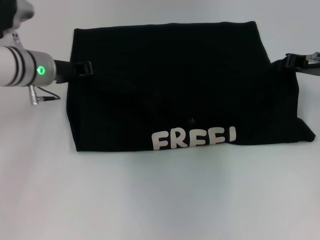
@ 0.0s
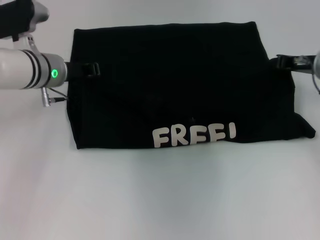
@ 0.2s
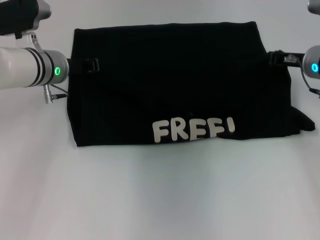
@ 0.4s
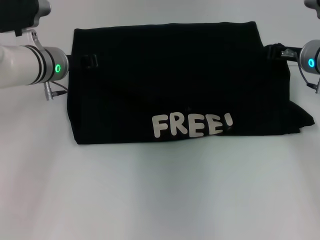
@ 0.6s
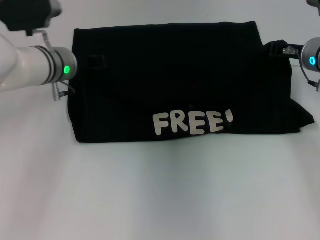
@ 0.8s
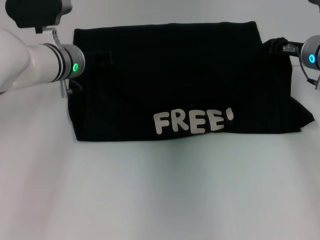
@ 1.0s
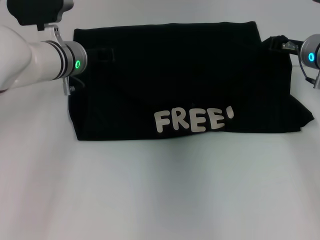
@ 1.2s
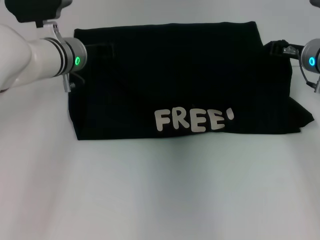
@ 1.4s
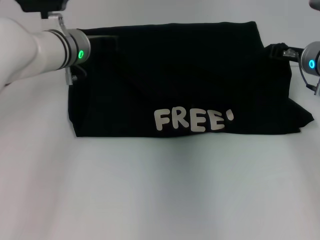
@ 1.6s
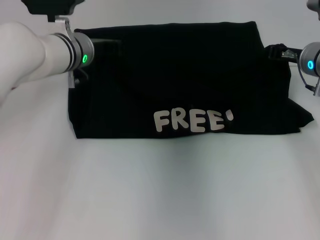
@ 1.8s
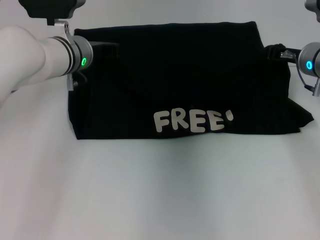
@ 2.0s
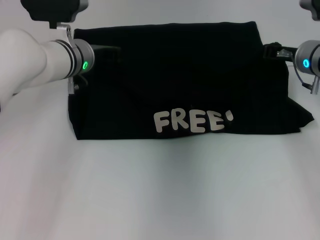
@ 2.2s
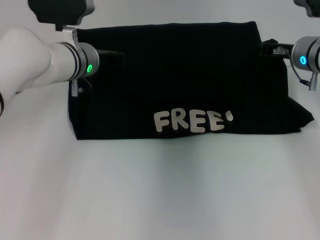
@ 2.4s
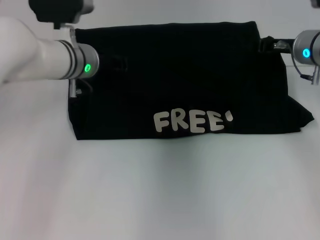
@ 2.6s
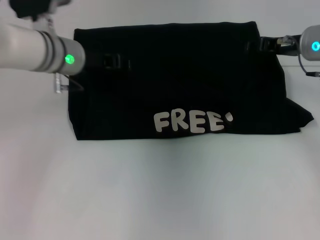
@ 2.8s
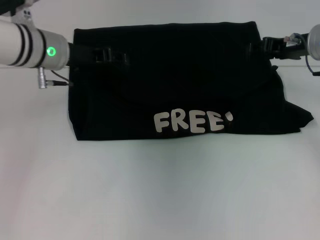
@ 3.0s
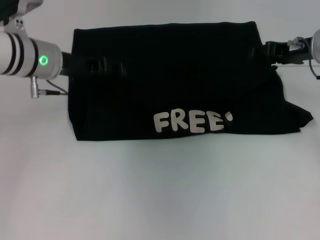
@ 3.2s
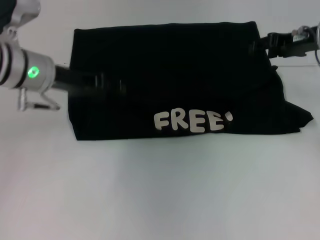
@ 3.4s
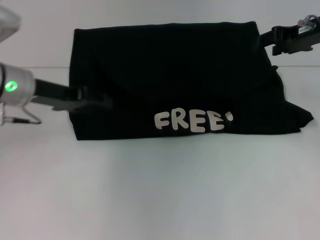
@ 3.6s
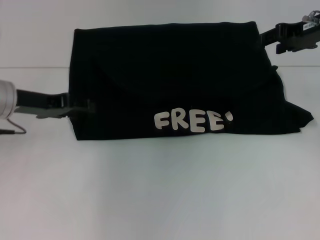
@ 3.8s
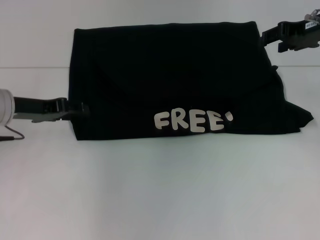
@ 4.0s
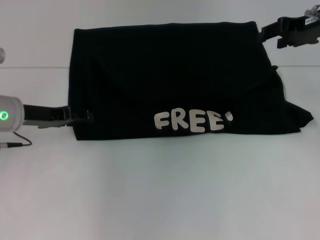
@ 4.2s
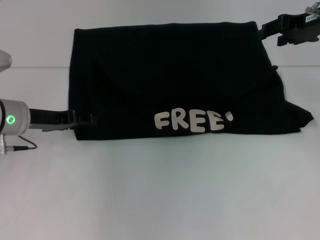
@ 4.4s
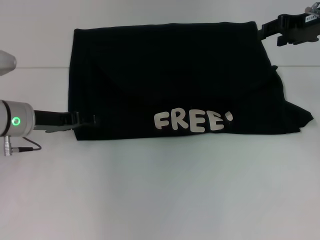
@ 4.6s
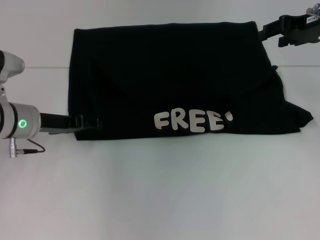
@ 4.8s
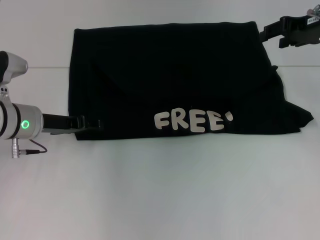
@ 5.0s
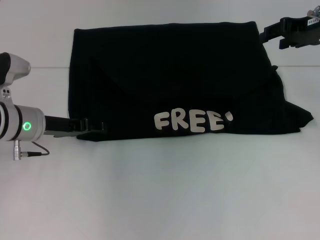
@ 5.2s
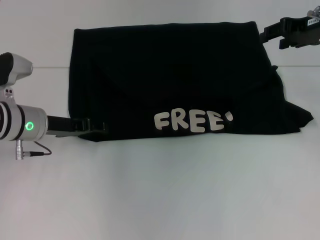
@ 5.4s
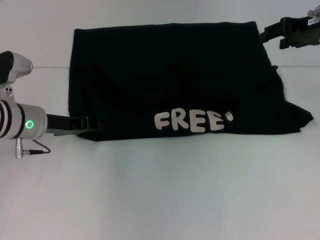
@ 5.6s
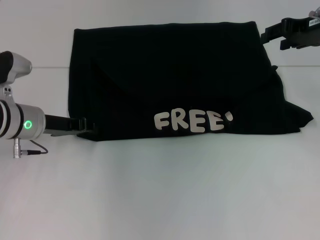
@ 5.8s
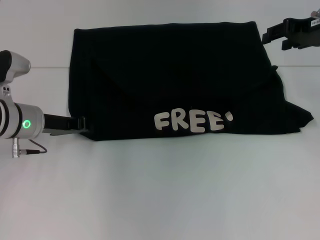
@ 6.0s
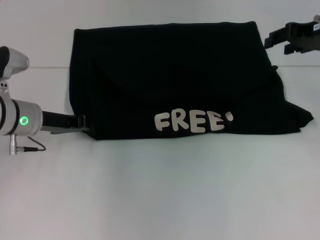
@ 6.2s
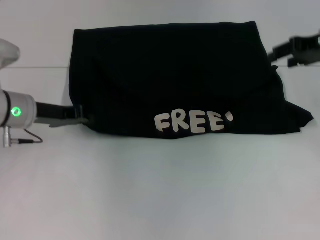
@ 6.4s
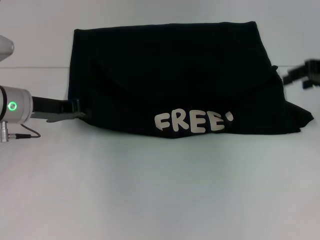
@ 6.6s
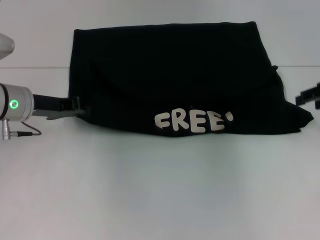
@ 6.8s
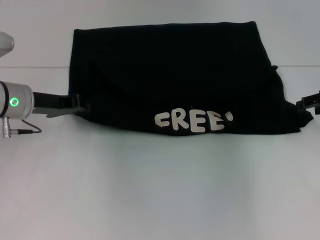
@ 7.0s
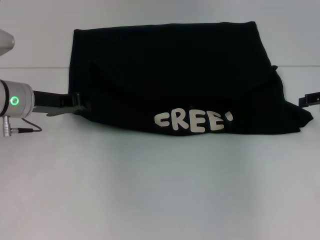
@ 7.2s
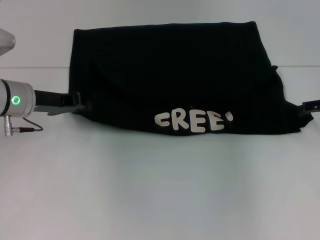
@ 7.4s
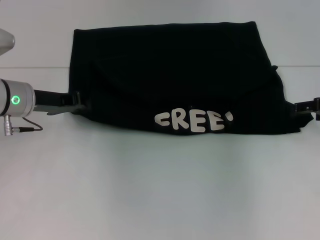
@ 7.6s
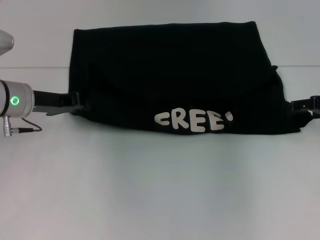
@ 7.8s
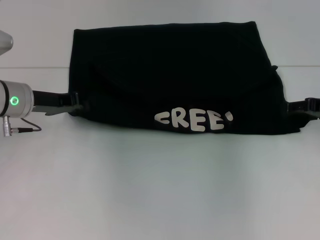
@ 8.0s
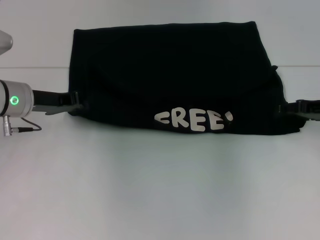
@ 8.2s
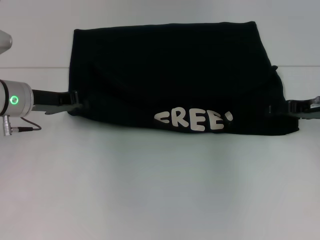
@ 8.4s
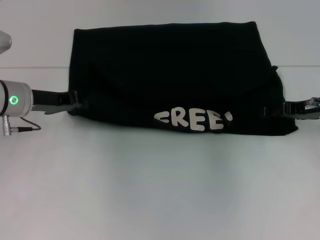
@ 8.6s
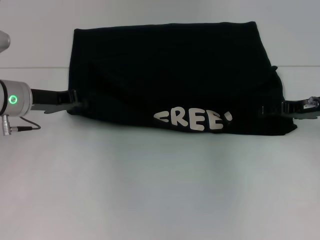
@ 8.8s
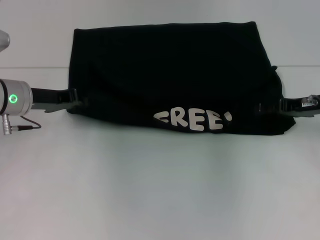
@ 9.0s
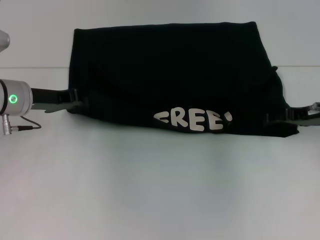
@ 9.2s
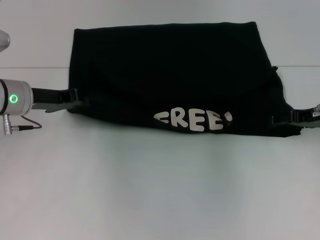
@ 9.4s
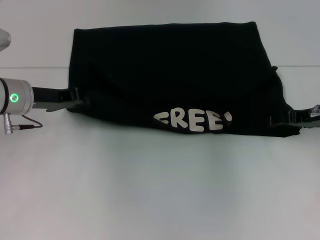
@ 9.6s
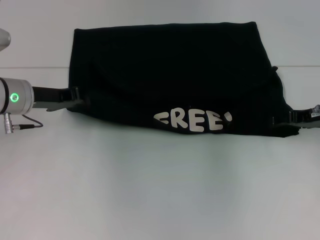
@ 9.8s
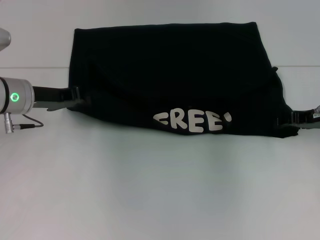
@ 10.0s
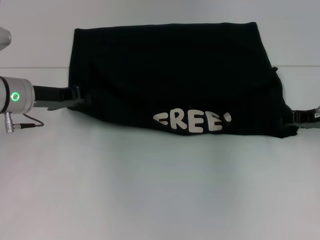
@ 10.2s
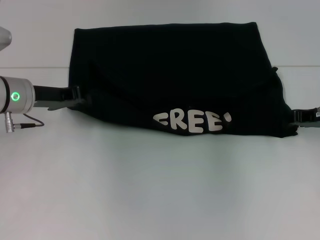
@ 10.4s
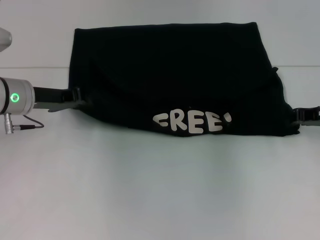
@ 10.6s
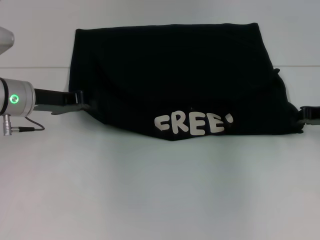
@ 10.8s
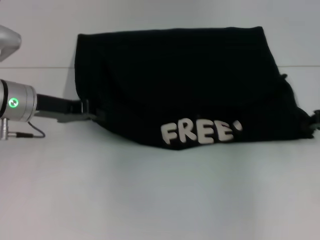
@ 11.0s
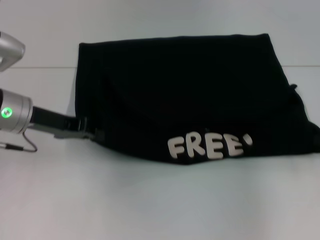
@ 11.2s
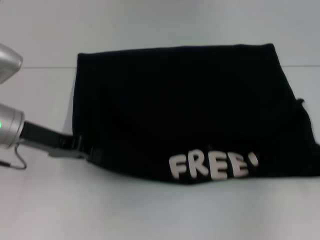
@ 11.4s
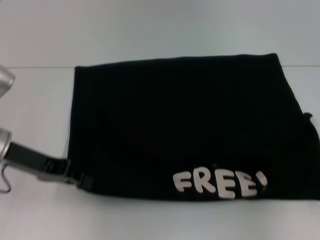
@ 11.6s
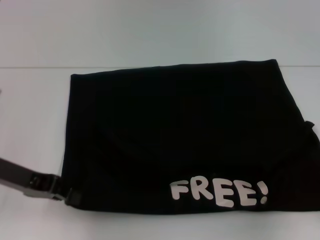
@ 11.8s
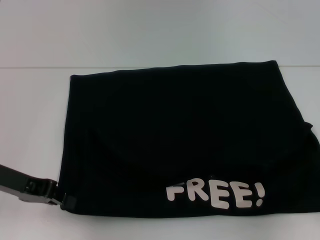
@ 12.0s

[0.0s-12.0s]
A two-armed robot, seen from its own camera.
Step, 0.0s to 4.4s: Fold the clothes with your left hand.
Step, 0.0s to 4.4s: Fold the clothes with your right hand.
0.0s to 1.6s: The left gripper goes about 5 cm to the right.
1.6s to 3.0s: The right gripper opens its fingers, while the left gripper ends up some 5 cm from where it was, and opens its fingers.
3.0s to 4.4s: The left gripper goes about 10 cm downward, to the left and backward. Meanwhile the right gripper travels upward by approximately 5 cm.
4.4s to 6.0s: The left gripper closes.
6.0s to 7.6s: The right gripper shifts about 15 cm downward, to the right and backward.
7.6s to 9.0s: The right gripper goes some 5 cm to the left.
9.0s to 10.4s: The right gripper closes its fingers.
10.4s to 12.0s: The right gripper moves backward and to the right, some 15 cm, and closes. The left gripper goes some 10 cm backward.

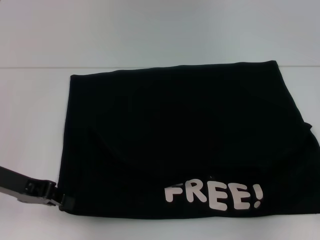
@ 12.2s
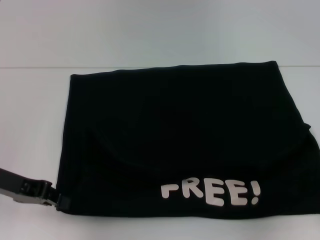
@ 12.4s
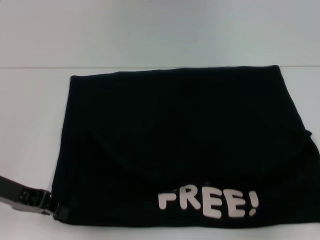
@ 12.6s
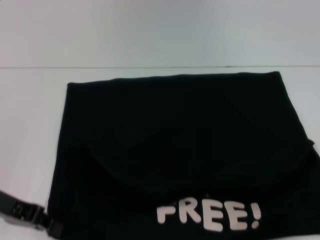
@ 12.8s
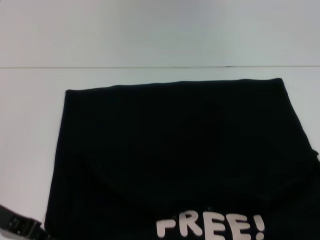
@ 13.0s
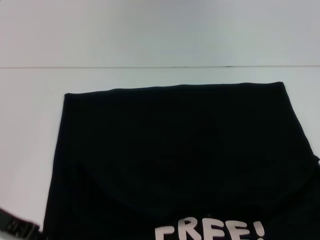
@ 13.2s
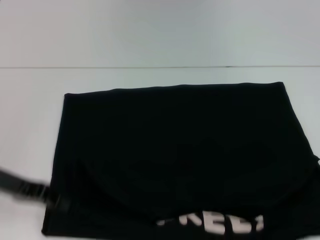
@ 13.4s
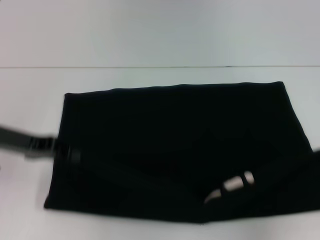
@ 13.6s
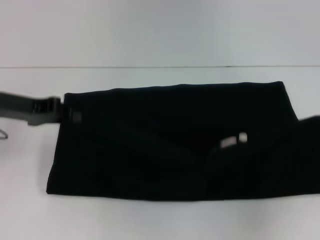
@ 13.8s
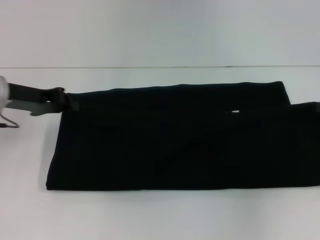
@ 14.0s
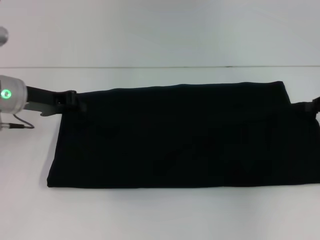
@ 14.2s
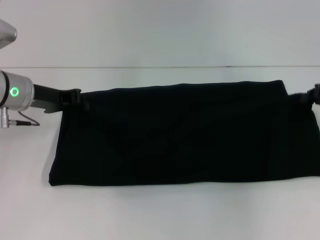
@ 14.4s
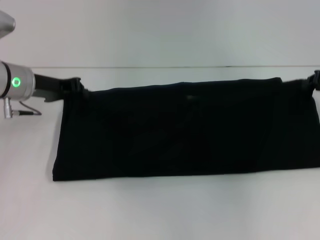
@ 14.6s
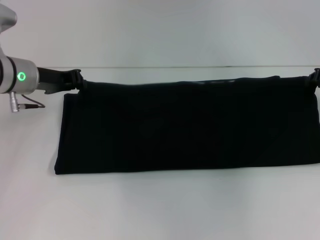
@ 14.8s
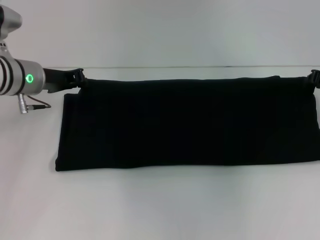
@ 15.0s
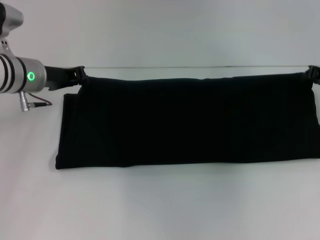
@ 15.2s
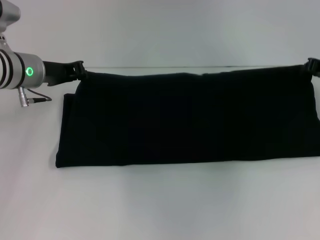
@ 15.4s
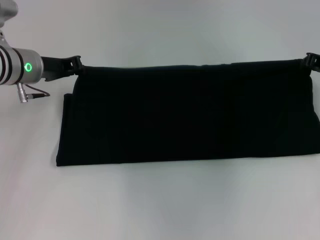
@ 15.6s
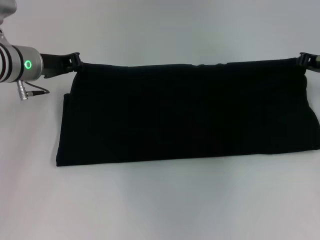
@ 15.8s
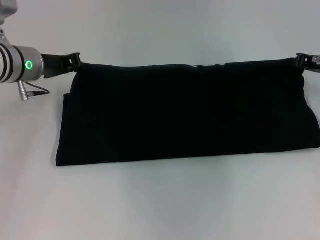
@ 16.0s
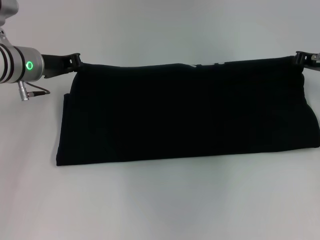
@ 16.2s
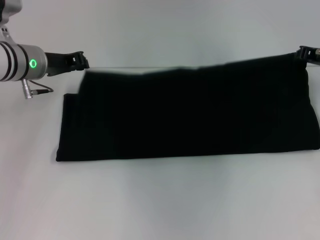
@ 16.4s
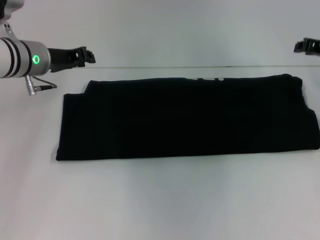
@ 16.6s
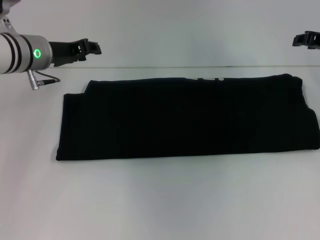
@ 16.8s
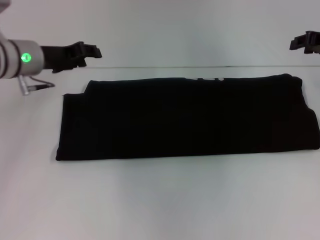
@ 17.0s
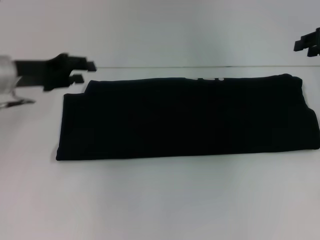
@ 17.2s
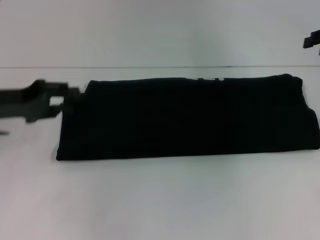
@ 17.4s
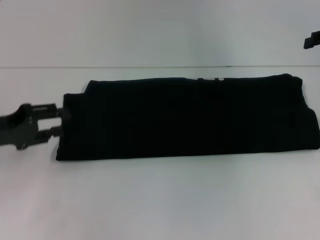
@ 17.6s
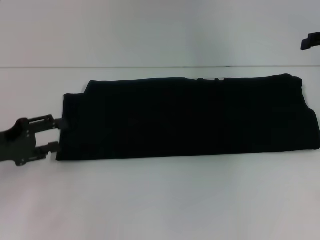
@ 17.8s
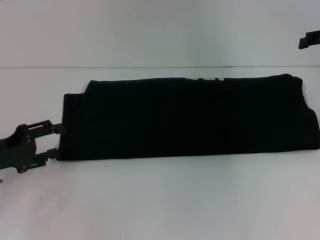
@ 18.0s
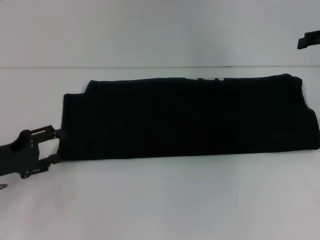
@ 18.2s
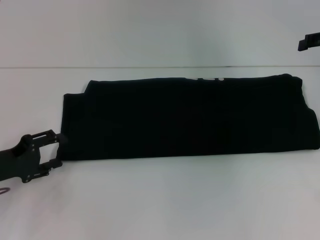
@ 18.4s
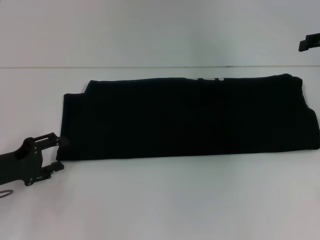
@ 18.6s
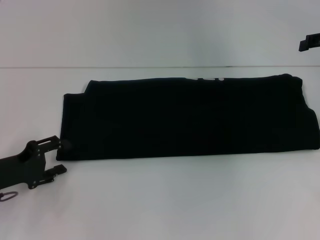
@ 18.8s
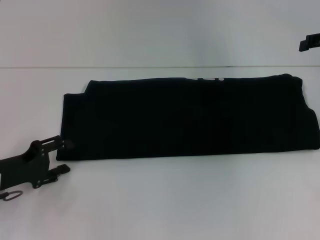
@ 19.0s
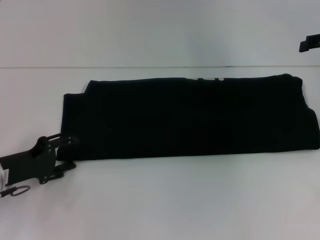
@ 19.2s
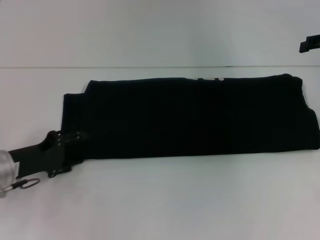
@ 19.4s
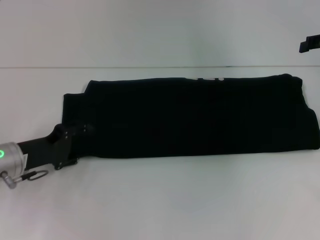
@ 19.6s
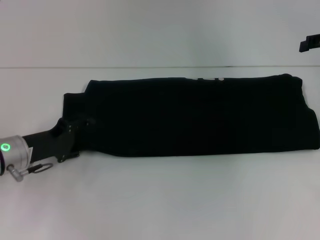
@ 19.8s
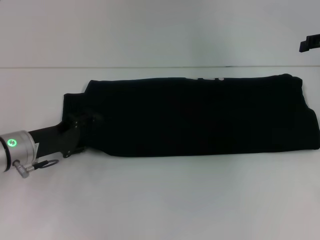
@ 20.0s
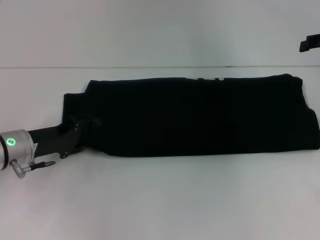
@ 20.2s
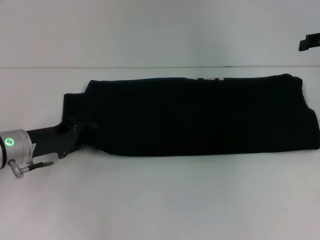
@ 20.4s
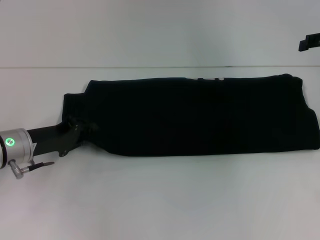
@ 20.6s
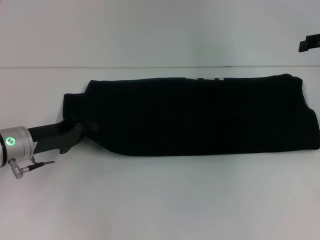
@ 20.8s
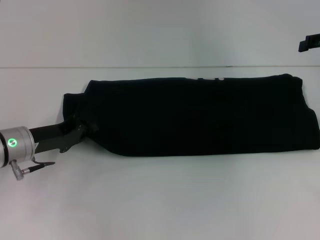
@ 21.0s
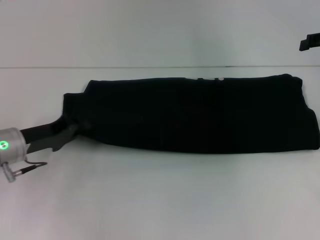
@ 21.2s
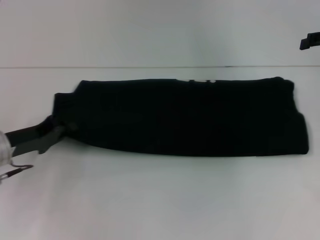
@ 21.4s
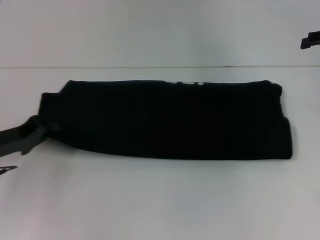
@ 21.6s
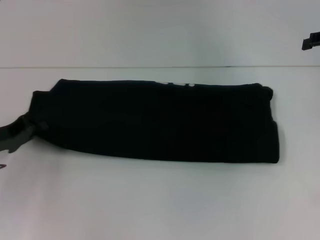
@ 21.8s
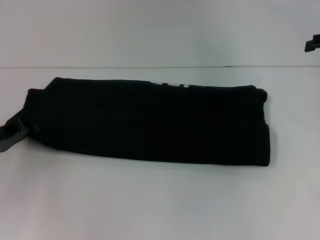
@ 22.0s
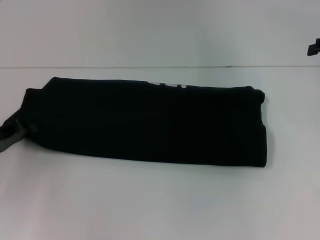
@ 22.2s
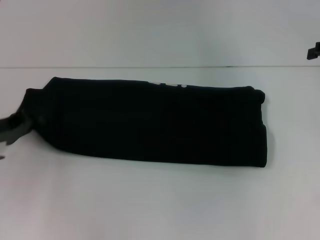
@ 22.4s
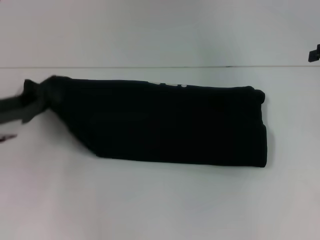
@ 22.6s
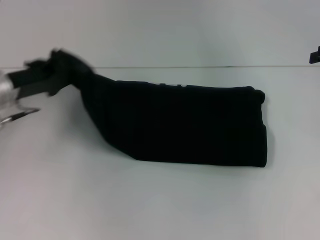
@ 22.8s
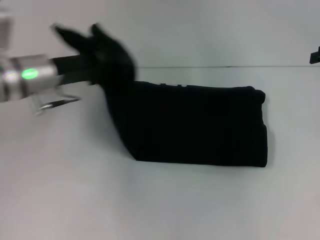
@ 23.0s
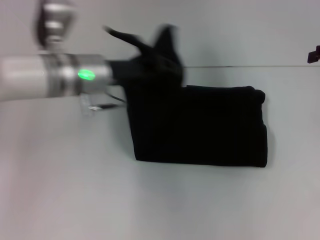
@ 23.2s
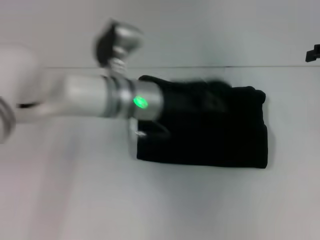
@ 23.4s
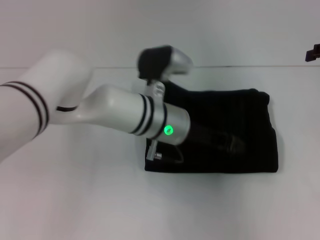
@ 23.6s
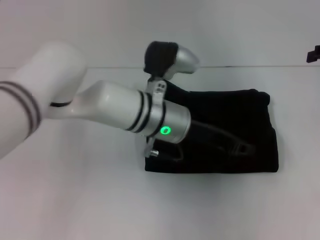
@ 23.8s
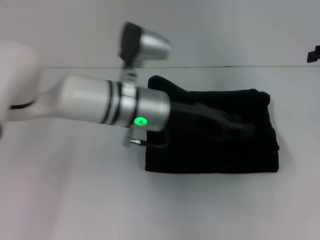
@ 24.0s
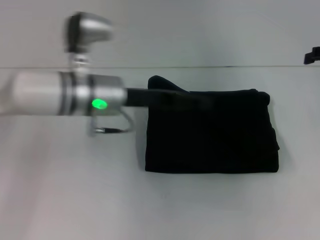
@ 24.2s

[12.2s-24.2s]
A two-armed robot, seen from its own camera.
Step, 13.2s to 16.4s: Fold the clothes with your right hand.
Step, 13.2s to 23.8s: Fold the clothes with your left hand.
12.2s to 13.8s: The left gripper shifts roughly 5 cm forward, while the right gripper moves about 5 cm.
13.8s to 15.2s: The right gripper shifts about 10 cm forward and to the left. The left gripper goes approximately 10 cm forward and to the right.
15.2s to 16.6s: The grippers stay close to where they were, moving slightly.
16.6s to 18.2s: The left gripper travels backward, to the left and downward by roughly 20 cm, and opens up.
18.2s to 19.8s: The left gripper is displaced to the right by roughly 5 cm.
19.8s to 21.2s: The left gripper closes up.
21.2s to 22.6s: The left gripper shifts by approximately 5 cm.
22.6s to 24.2s: The left gripper heads to the right, covering approximately 20 cm.
